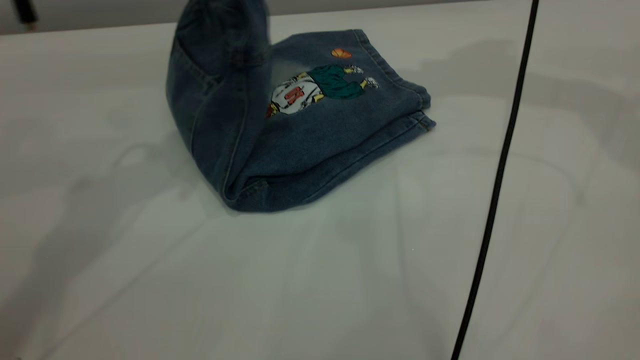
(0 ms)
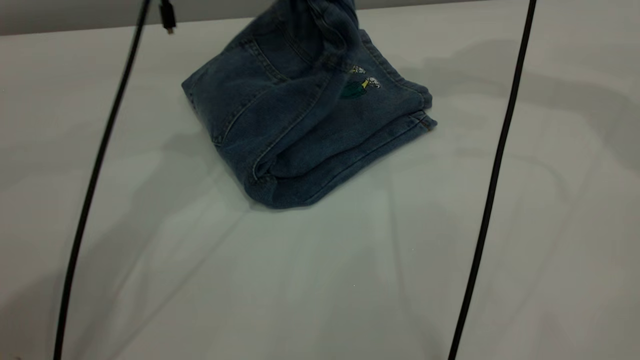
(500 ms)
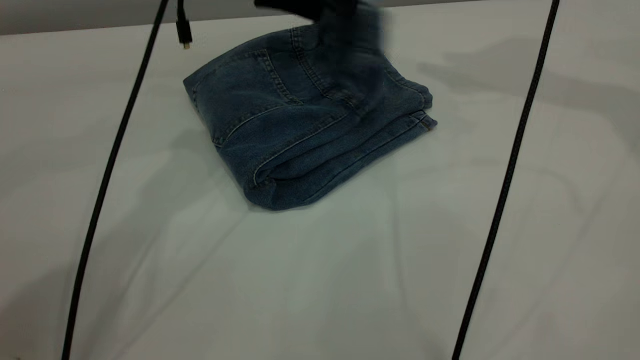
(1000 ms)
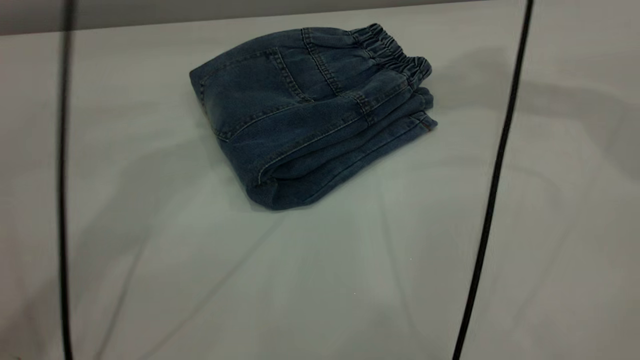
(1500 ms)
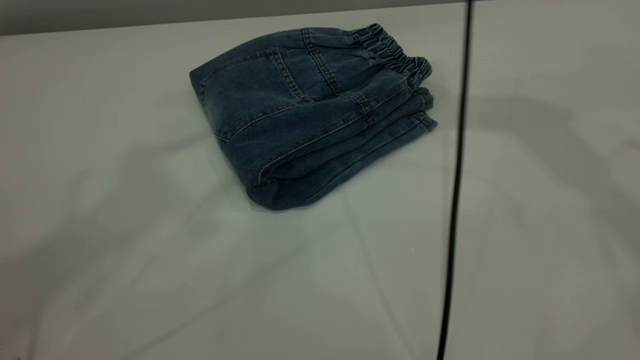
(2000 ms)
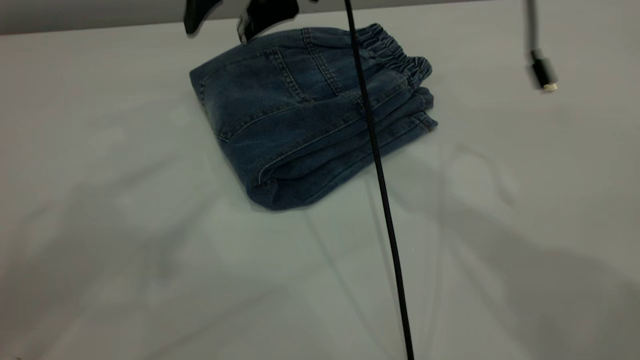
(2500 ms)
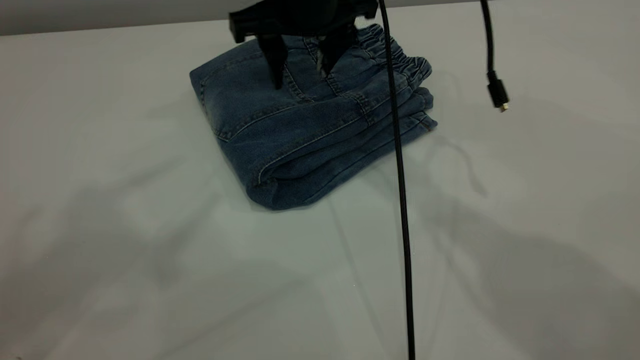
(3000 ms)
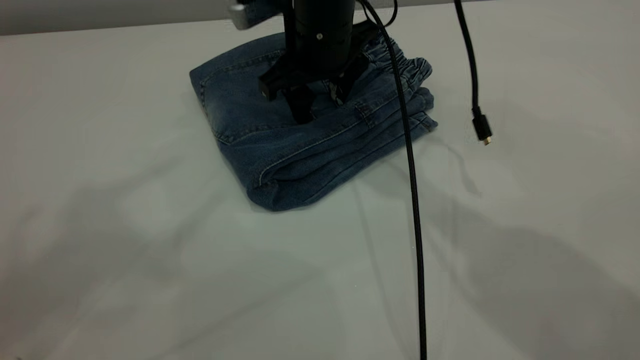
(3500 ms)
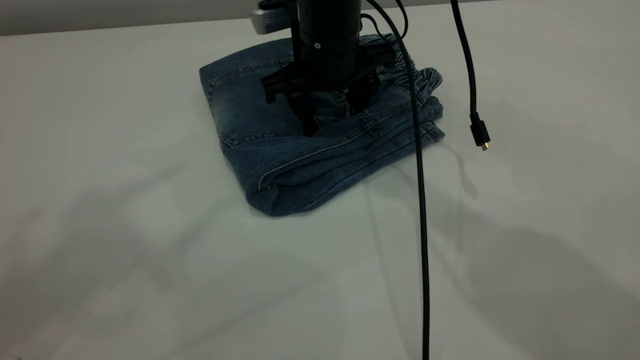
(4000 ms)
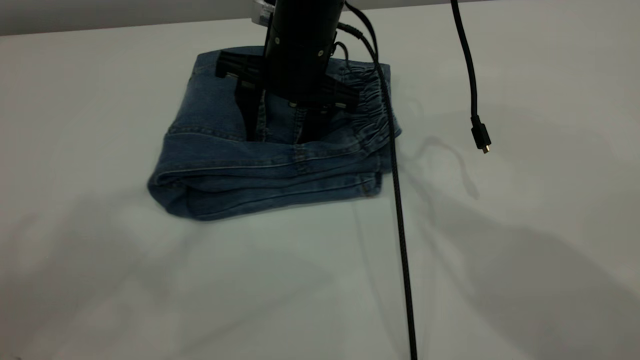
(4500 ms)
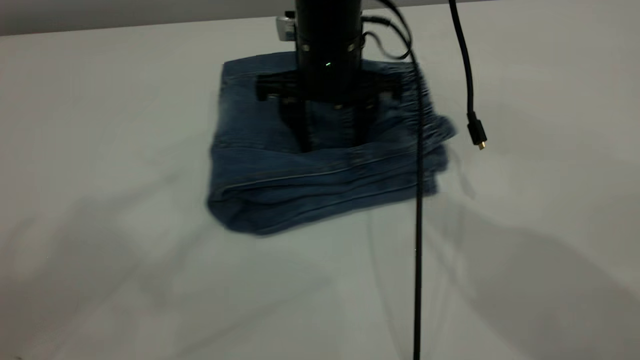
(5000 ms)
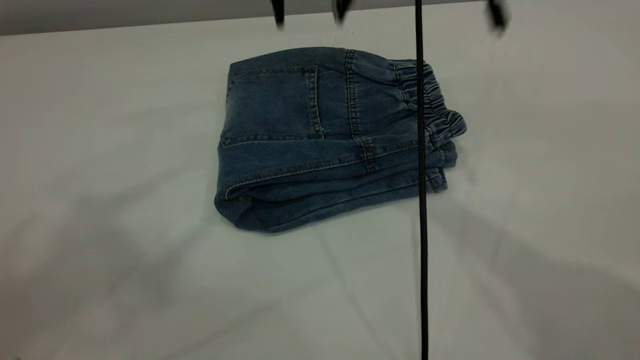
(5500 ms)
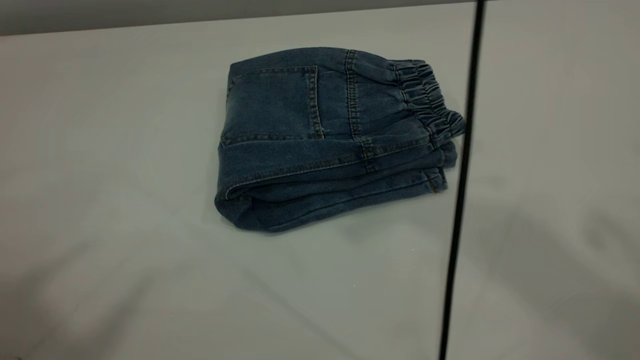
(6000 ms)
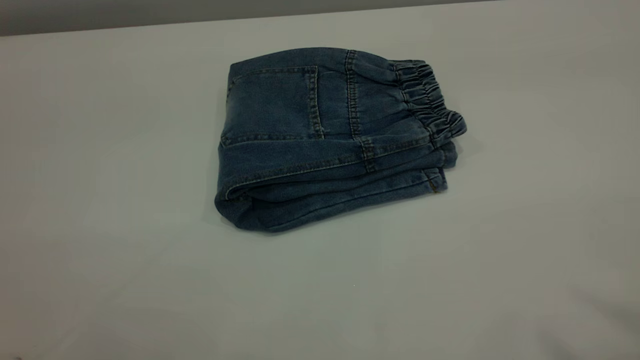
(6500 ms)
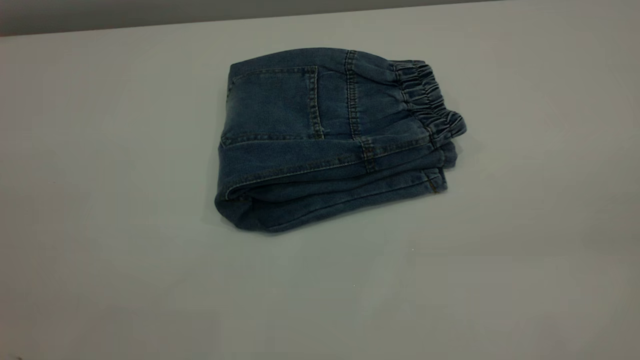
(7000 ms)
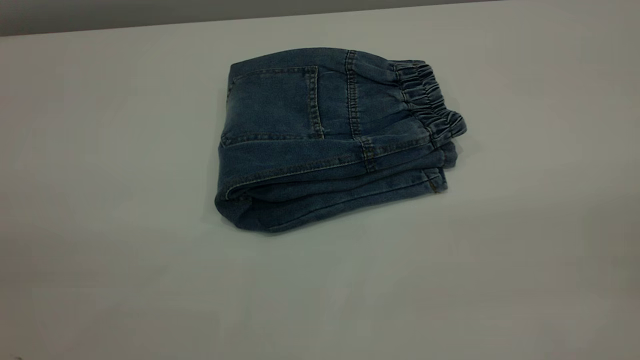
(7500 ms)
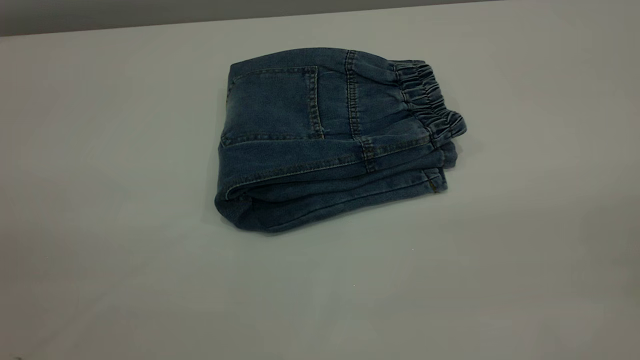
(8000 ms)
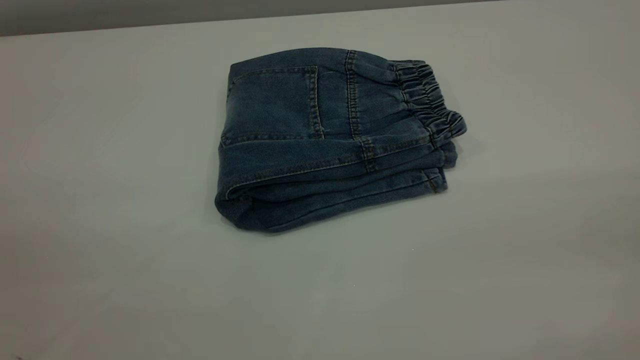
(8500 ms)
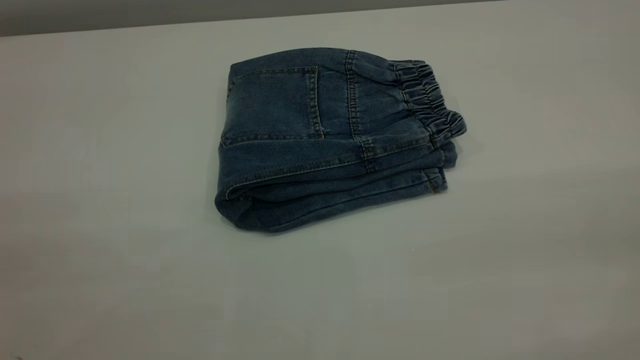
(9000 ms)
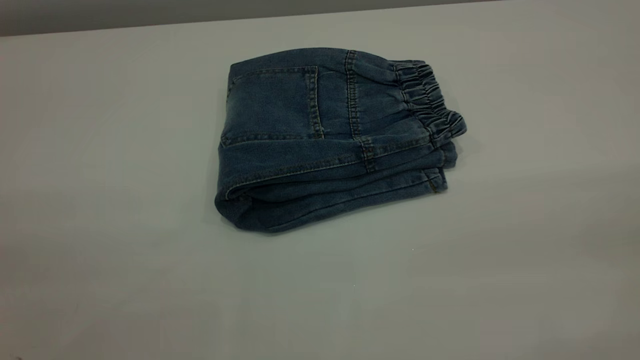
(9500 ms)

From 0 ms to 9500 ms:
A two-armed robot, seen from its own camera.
From 0 ms to 2000 ms: The left gripper moves upward, approximately 25 cm, and opens up; the right gripper moves to the left, roughly 10 cm.
From 2000 ms to 4000 ms: The right gripper goes roughly 20 cm downward and to the left.
From 4000 ms to 5500 ms: The right gripper is displaced upward by approximately 15 cm.
From 5500 ms to 7500 ms: The left gripper moves backward and downward, approximately 30 cm. Meanwhile the right gripper goes some 50 cm backward and to the right.

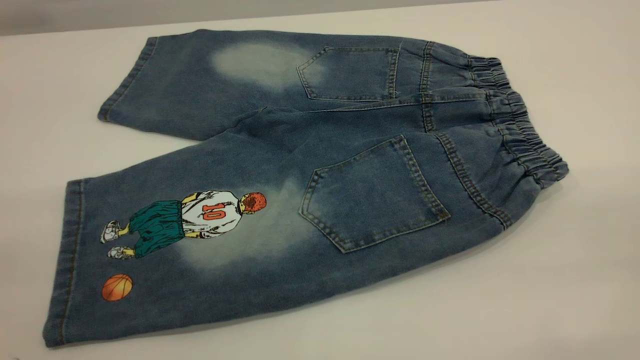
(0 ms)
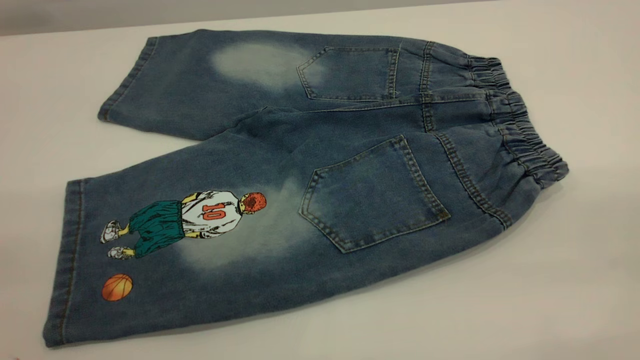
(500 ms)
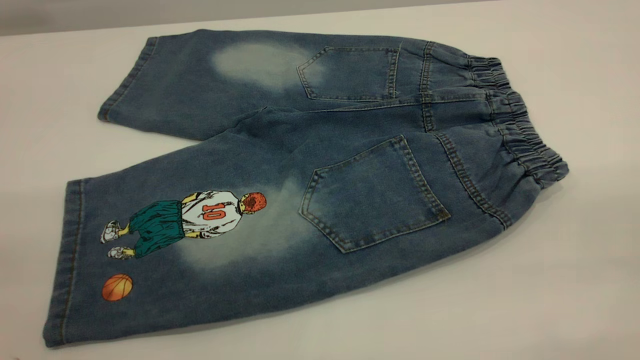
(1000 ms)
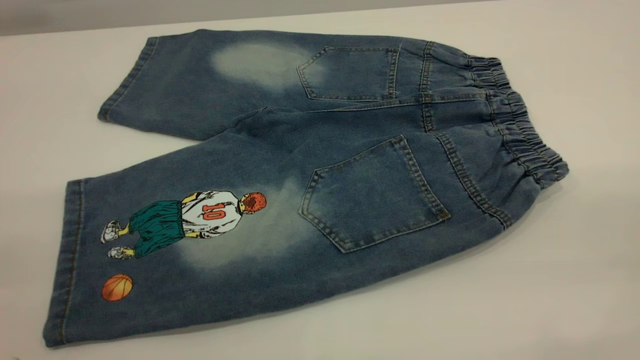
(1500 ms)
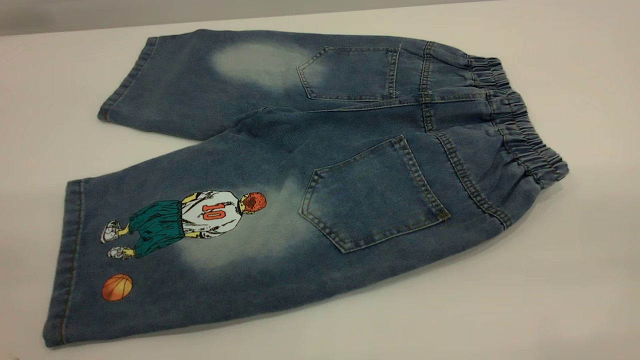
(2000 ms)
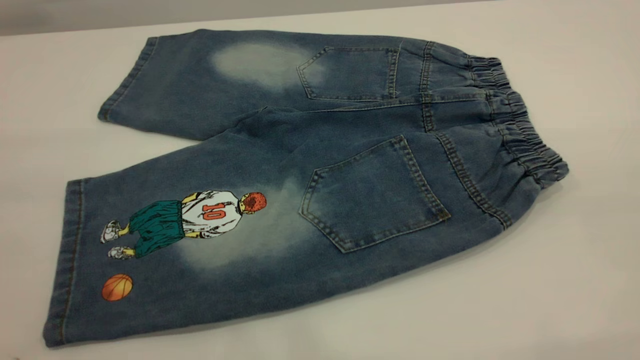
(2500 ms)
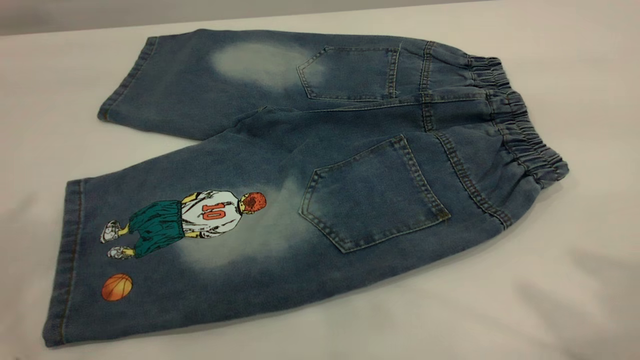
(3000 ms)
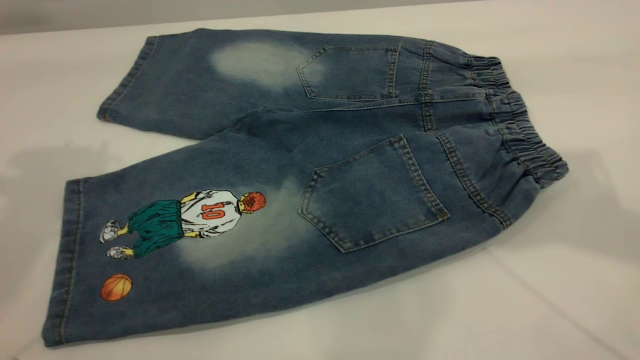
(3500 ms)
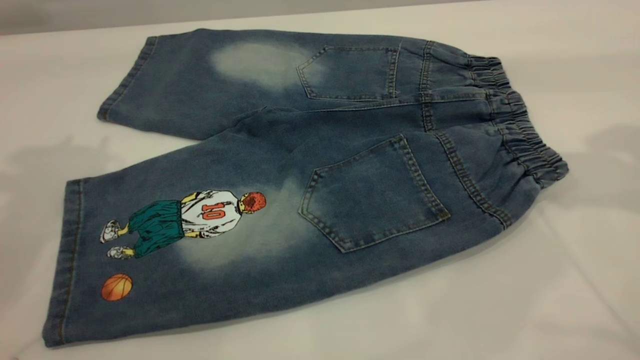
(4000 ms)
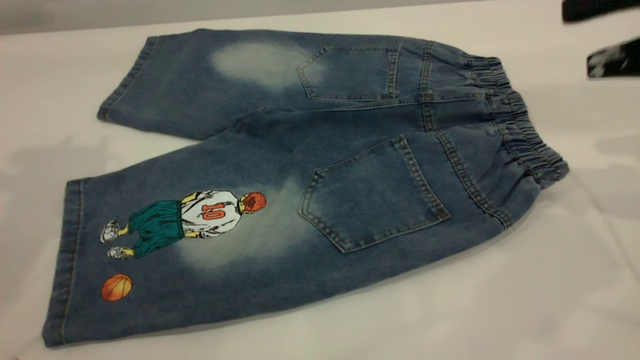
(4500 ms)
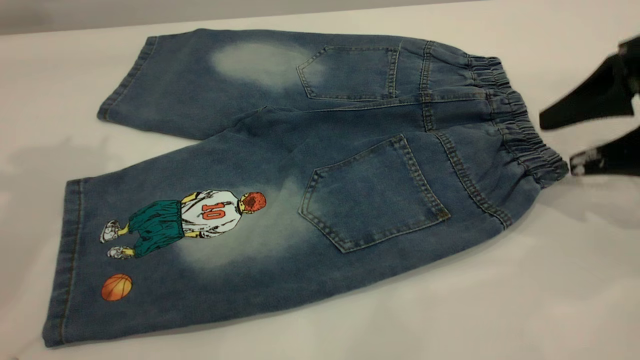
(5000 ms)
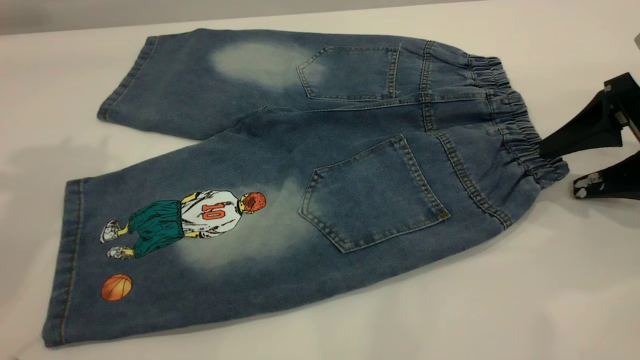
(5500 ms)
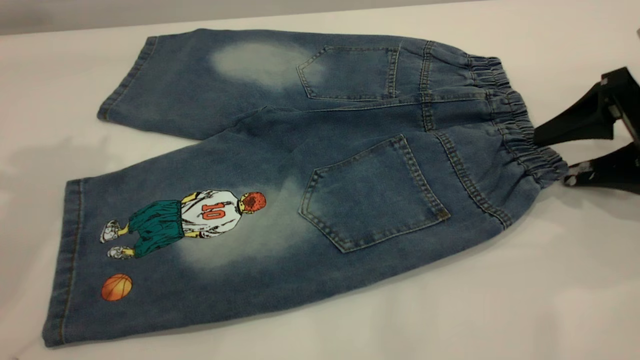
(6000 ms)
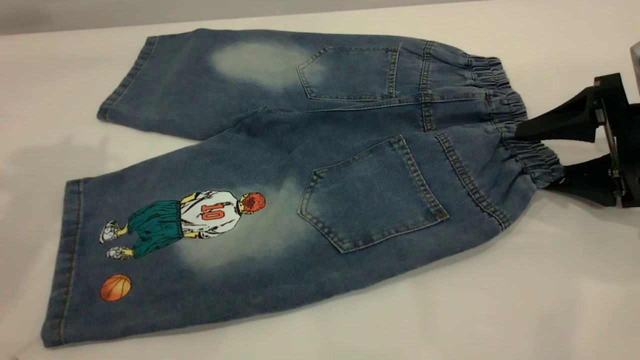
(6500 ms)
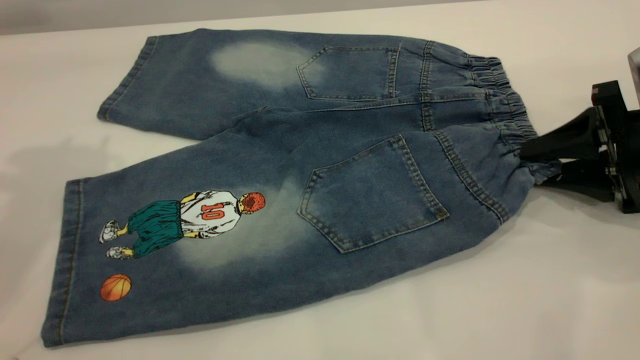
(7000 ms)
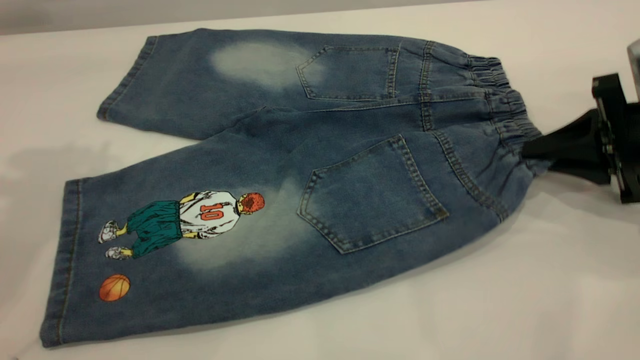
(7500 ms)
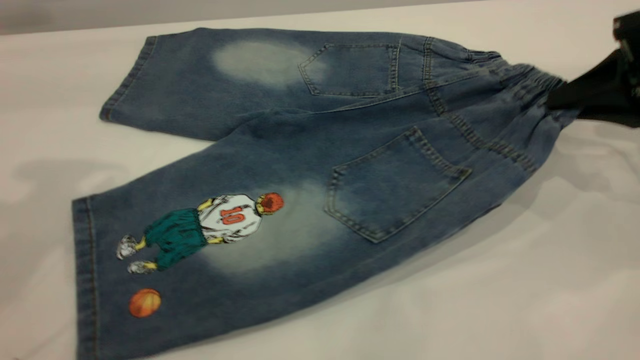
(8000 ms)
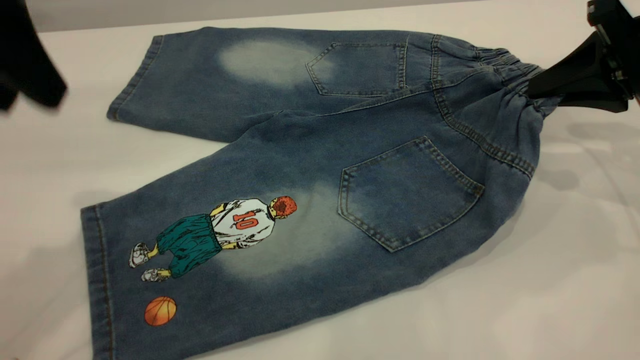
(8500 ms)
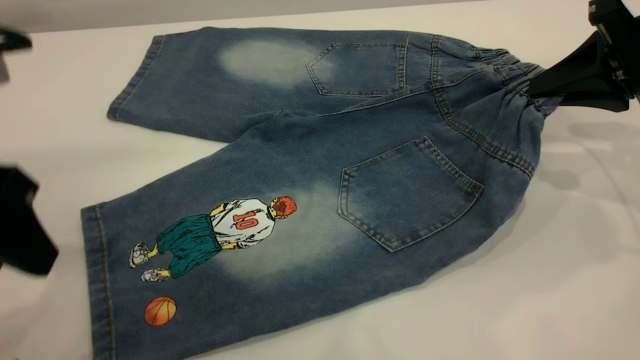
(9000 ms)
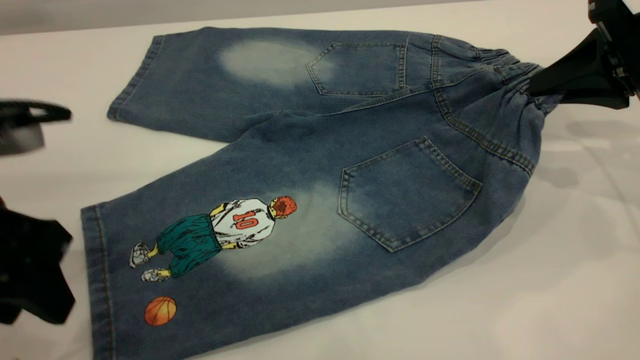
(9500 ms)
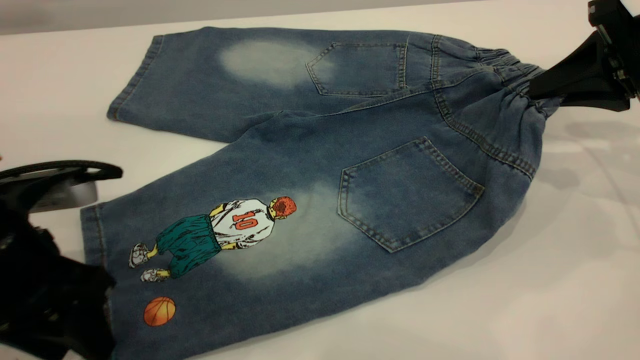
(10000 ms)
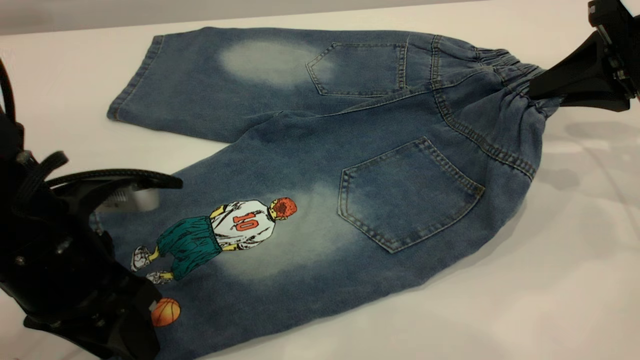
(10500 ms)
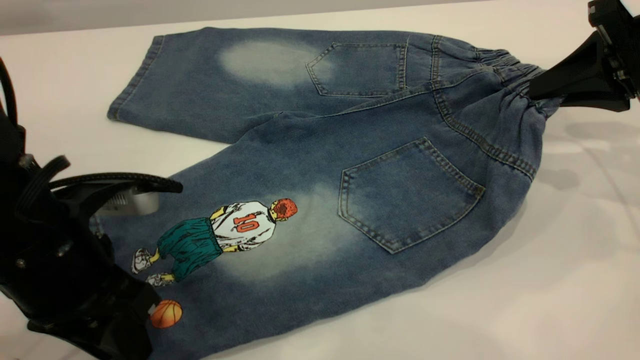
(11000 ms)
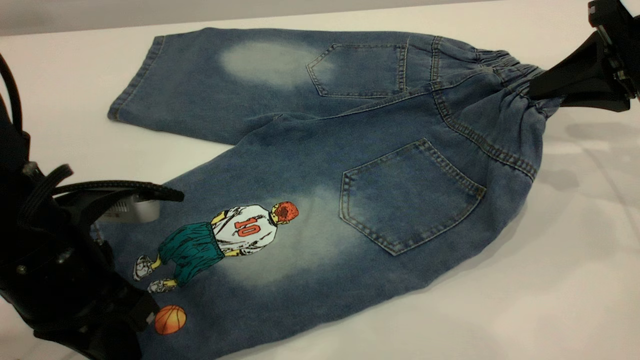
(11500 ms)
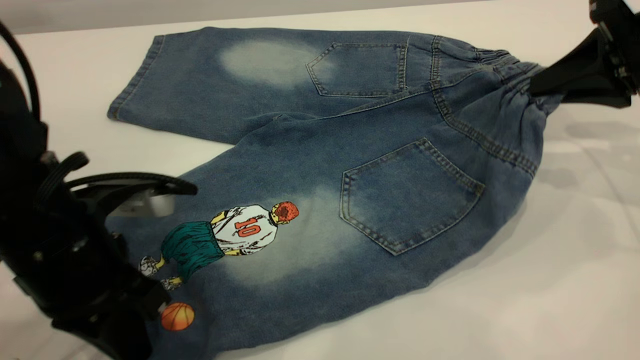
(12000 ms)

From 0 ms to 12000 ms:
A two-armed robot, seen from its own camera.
From 0 ms to 2000 ms: Both grippers stay put.
From 4000 ms to 6000 ms: The right gripper travels downward by about 20 cm.
From 6000 ms to 8000 ms: The right gripper closes its fingers.
From 8000 ms to 10000 ms: The left gripper shifts some 25 cm downward and backward.
From 10000 ms to 12000 ms: The left gripper closes its fingers.
